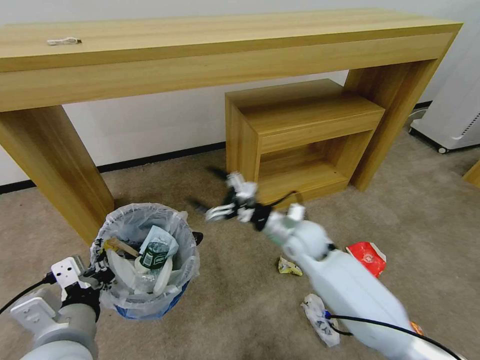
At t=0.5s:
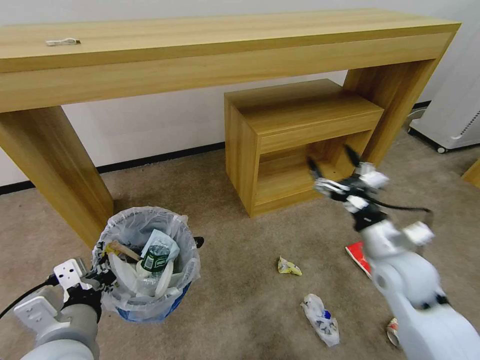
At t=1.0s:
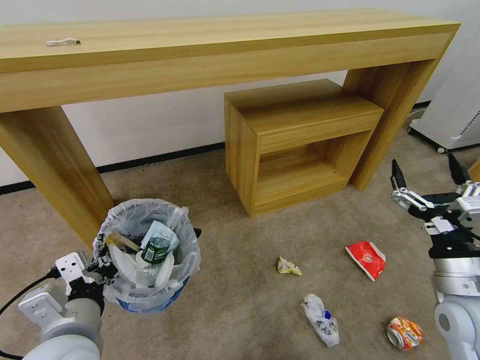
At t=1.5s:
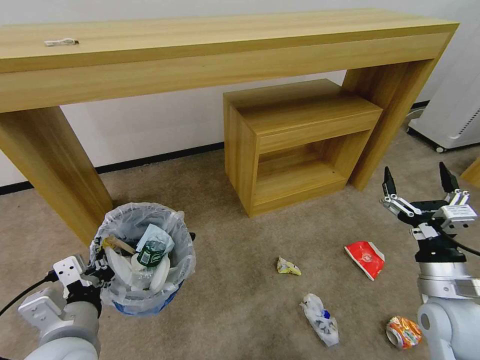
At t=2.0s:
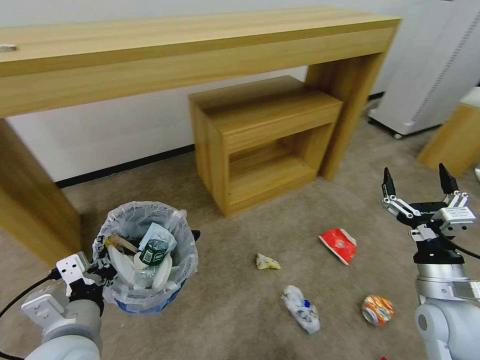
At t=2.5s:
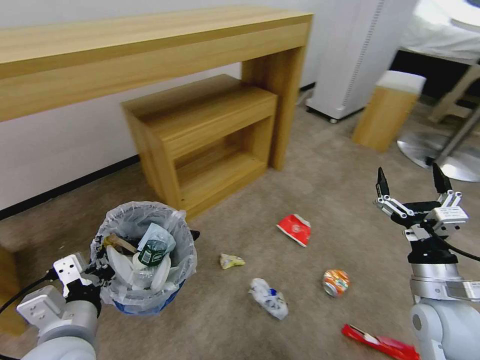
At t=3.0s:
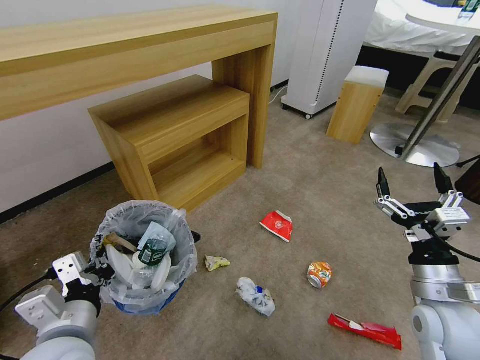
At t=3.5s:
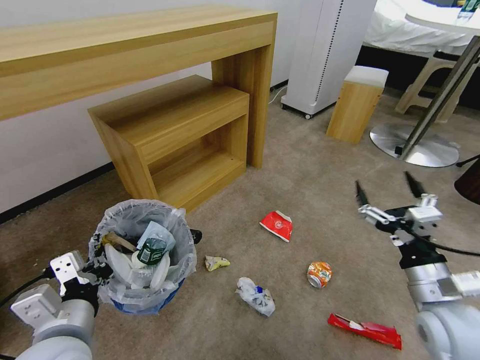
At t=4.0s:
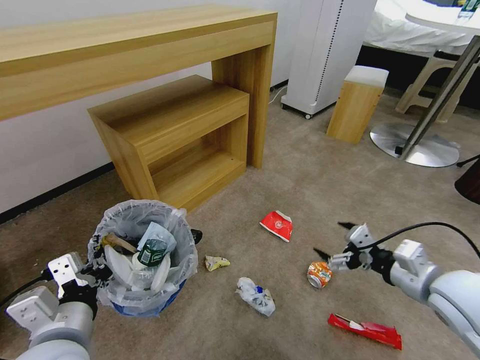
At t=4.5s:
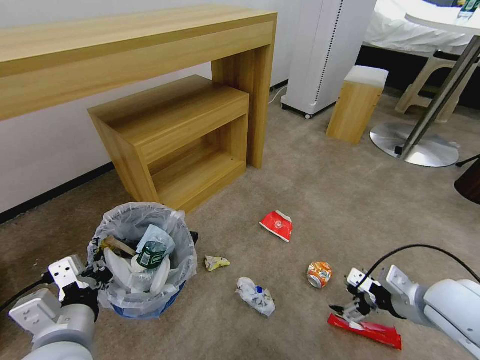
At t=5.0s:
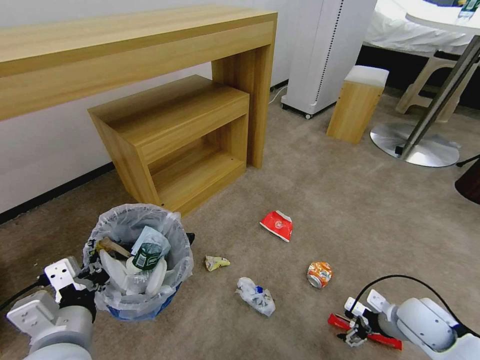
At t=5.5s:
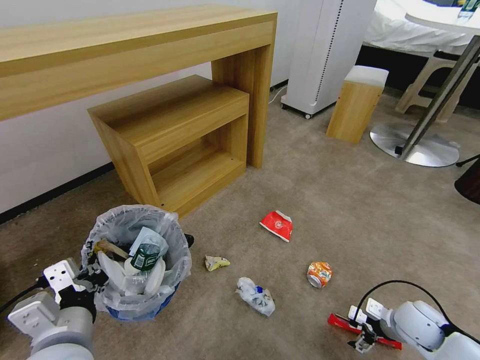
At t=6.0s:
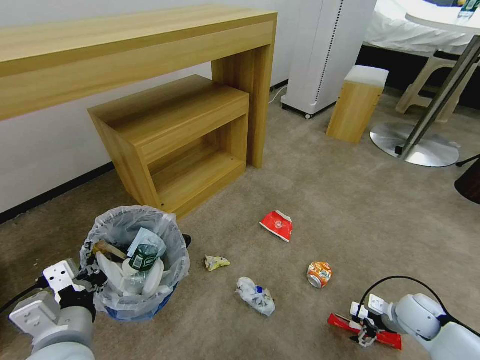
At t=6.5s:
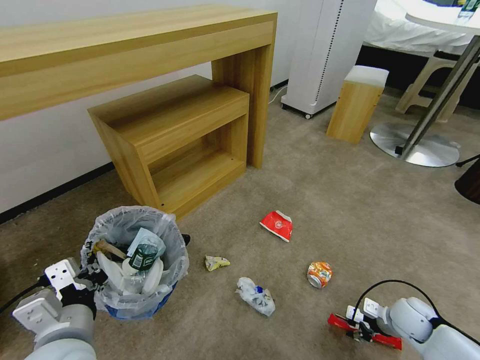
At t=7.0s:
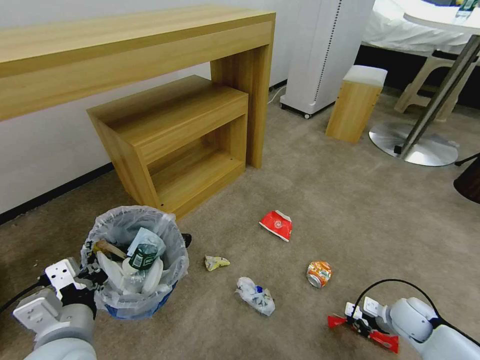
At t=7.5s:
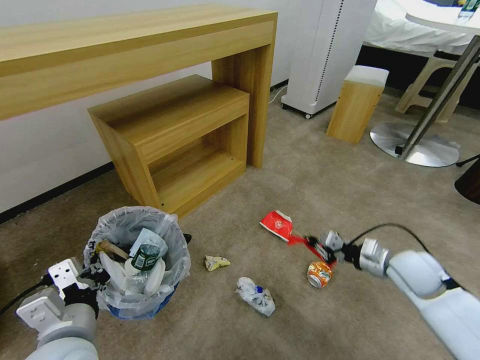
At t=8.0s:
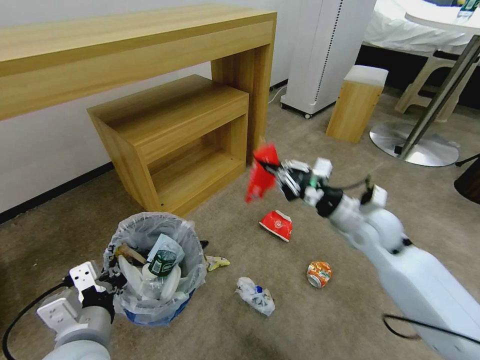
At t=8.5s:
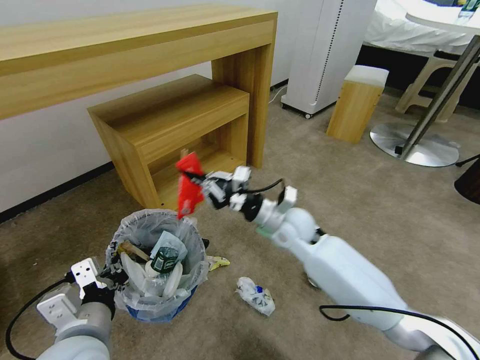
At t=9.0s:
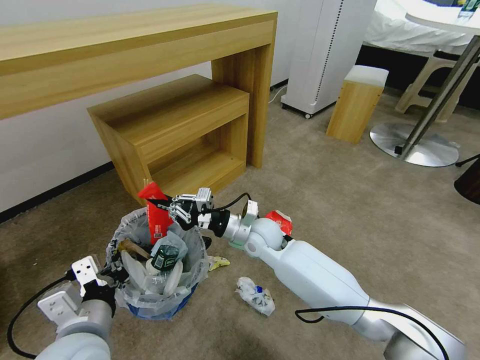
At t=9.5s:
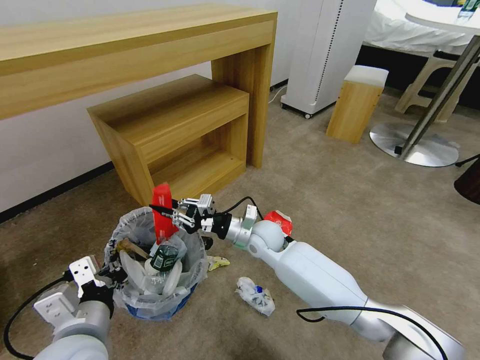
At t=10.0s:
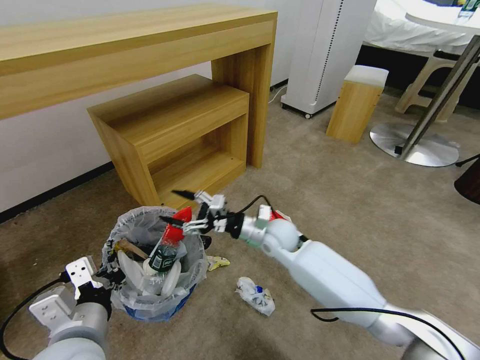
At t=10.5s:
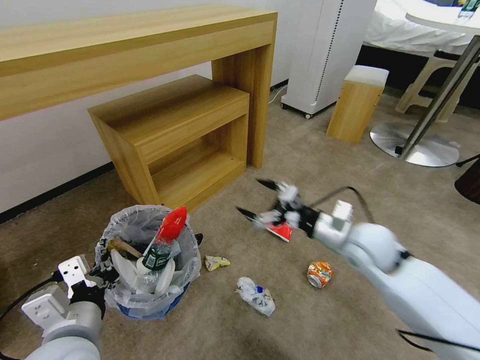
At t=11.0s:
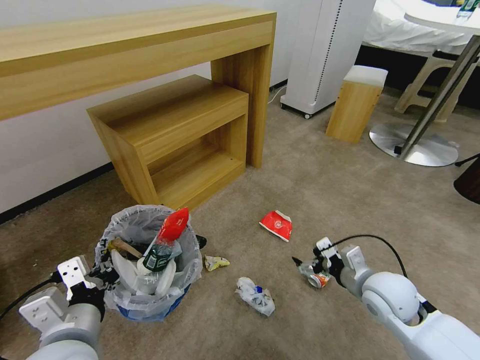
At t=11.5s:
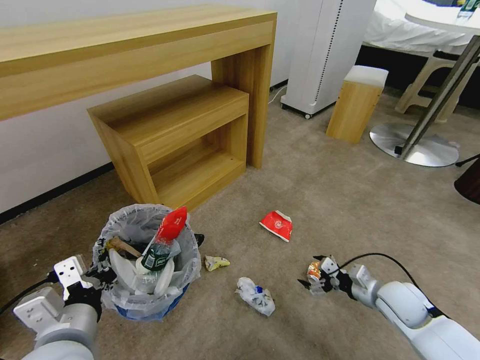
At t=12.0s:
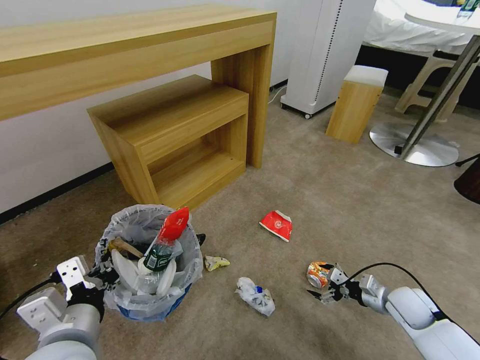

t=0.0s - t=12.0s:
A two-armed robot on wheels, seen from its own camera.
Task of the whole recording: Pick up the trash bin and place the garbage on the floor into it.
t=0.0s - t=2.0s: The right gripper is displaced to the right and backward by about 30 cm.
t=2.0s - t=4.0s: The right gripper ends up about 5 cm from where it was.
t=4.0s - t=6.0s: The right gripper shifts about 25 cm downward.
t=6.0s - t=8.0s: The right gripper travels upward, to the left and forward by roughly 30 cm, and closes.
t=8.0s - t=10.0s: The right gripper is displaced to the left and downward by approximately 20 cm, and opens.
t=10.0s - t=12.0s: The right gripper is displaced to the right and backward by some 35 cm.

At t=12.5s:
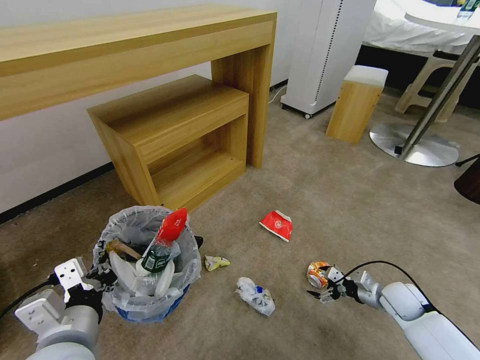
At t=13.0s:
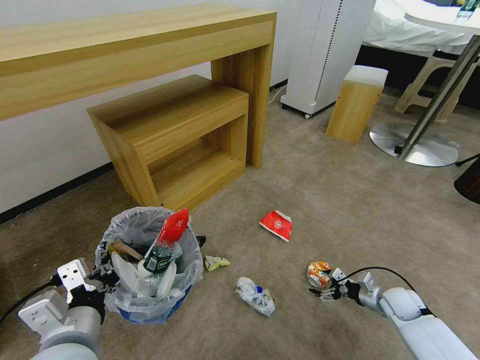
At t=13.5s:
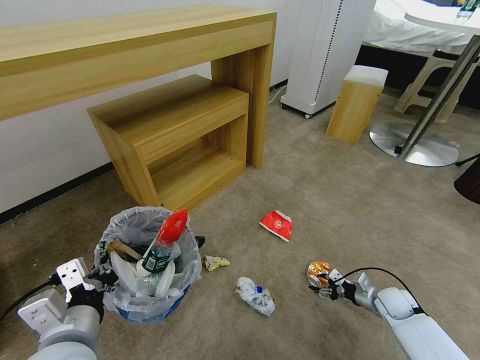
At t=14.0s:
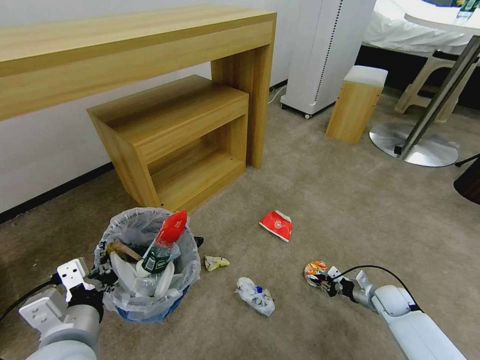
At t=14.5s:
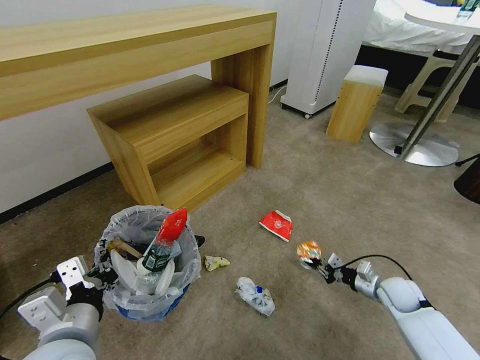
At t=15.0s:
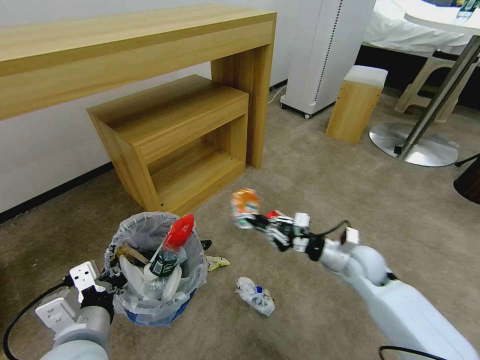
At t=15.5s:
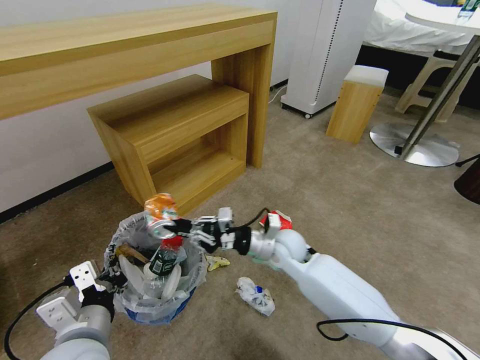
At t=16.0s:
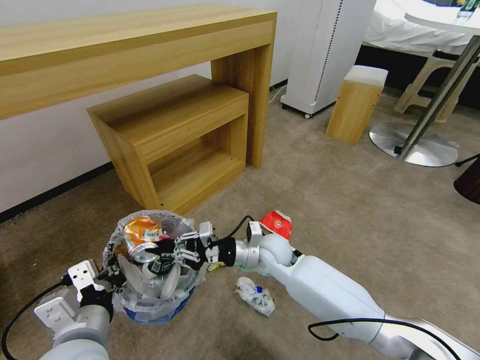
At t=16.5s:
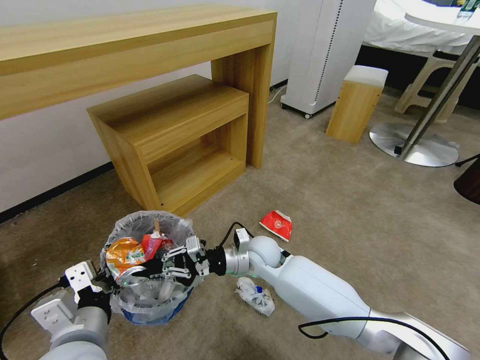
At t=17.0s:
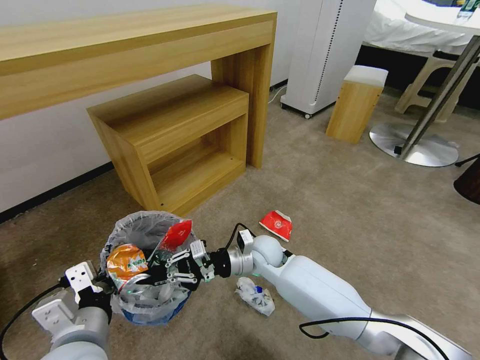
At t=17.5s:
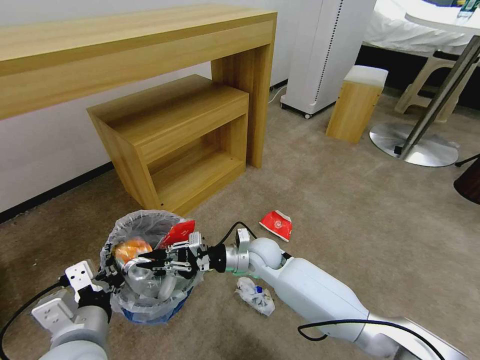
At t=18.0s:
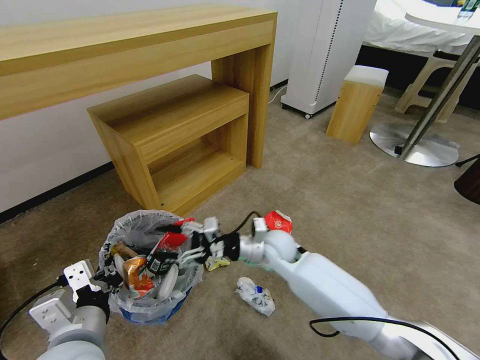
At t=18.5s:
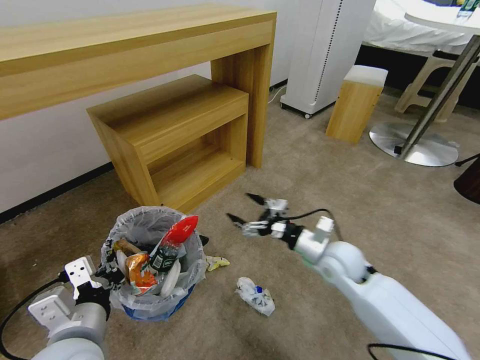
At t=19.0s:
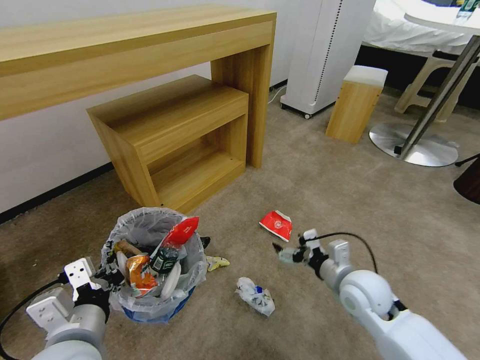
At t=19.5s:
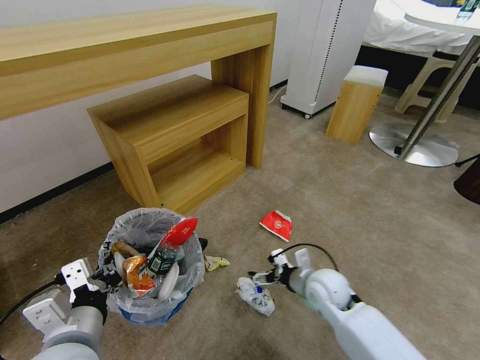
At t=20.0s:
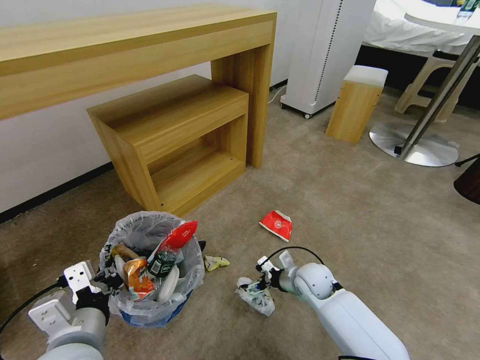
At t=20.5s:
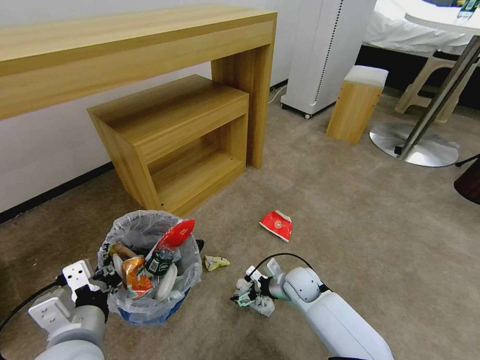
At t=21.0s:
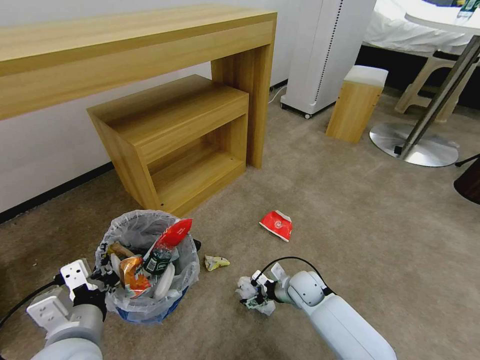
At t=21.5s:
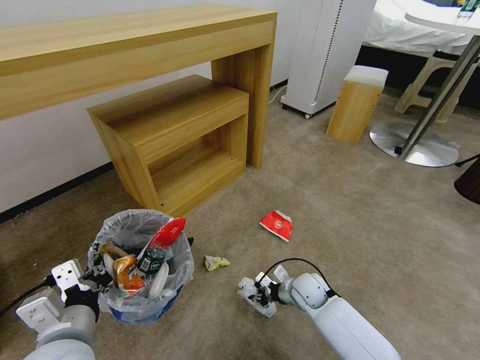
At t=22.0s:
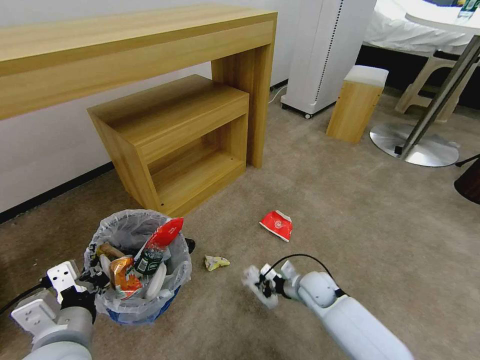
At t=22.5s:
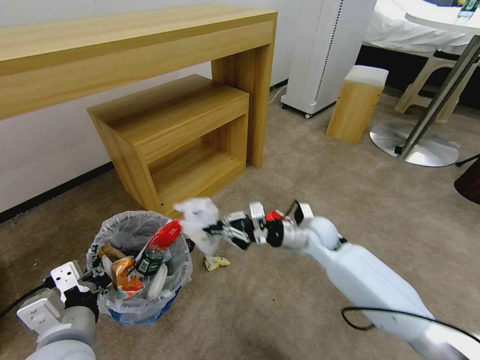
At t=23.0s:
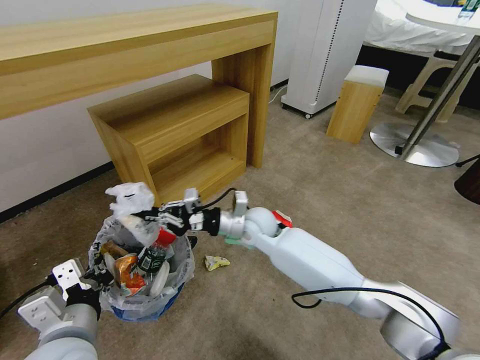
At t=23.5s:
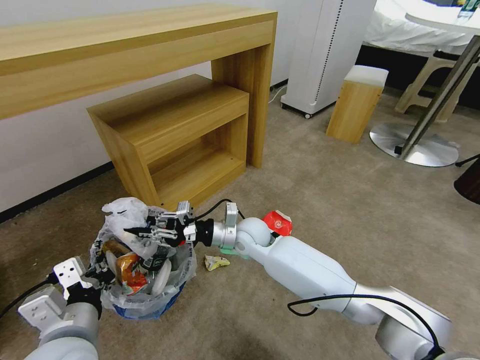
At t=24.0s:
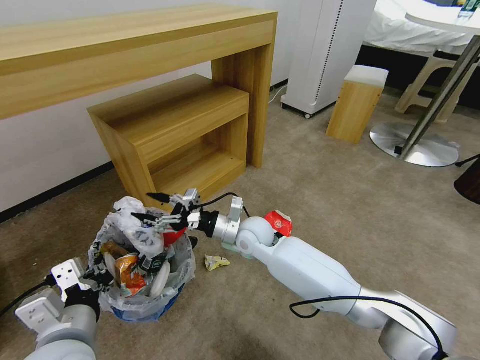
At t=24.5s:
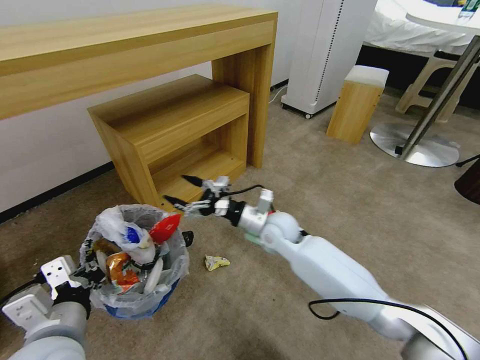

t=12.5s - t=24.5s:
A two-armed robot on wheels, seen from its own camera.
Task of the whole recording: Pick up the trash bin and place the garbage on the floor into it.
t=12.5s - t=14.5s: The right gripper closes up.
t=14.5s - t=16.5s: The right gripper heads to the left, covering about 40 cm.
t=16.5s - t=18.5s: The right gripper shifts some 20 cm to the right, and opens its fingers.
t=18.5s - t=20.5s: The right gripper heads downward and to the left, covering about 15 cm.
t=20.5s - t=22.5s: The right gripper goes roughly 15 cm upward, and closes.
t=22.5s - t=24.5s: The right gripper moves to the left, some 10 cm, and opens up.

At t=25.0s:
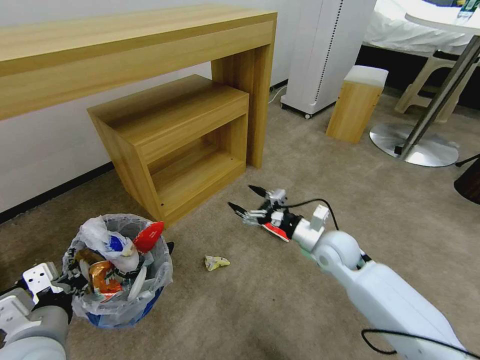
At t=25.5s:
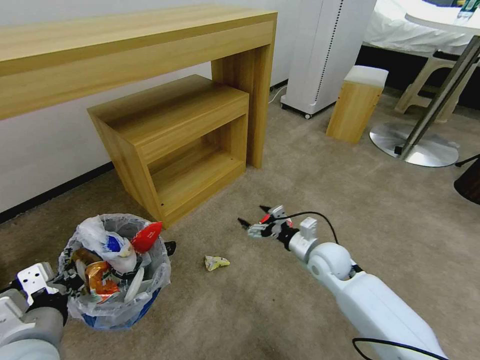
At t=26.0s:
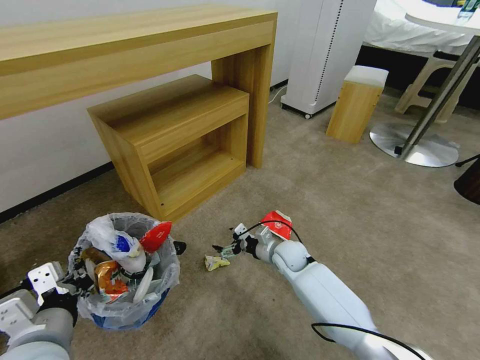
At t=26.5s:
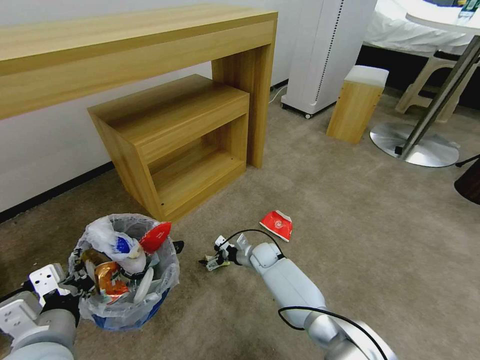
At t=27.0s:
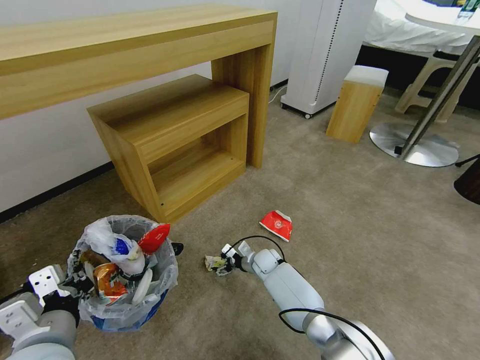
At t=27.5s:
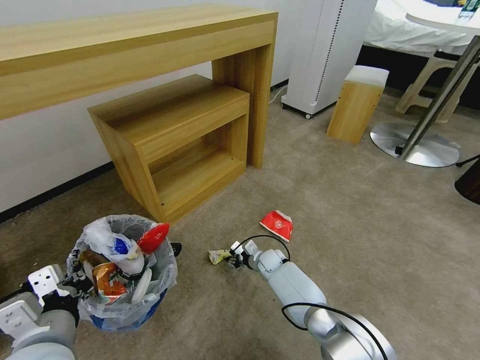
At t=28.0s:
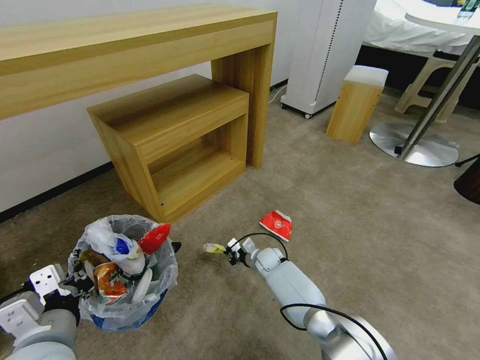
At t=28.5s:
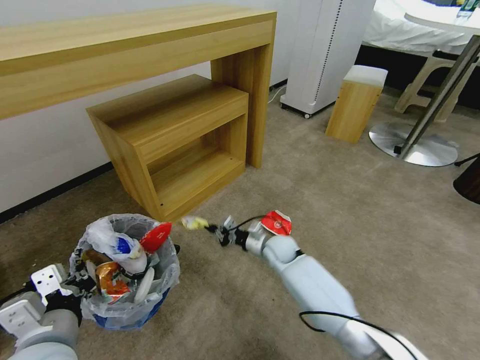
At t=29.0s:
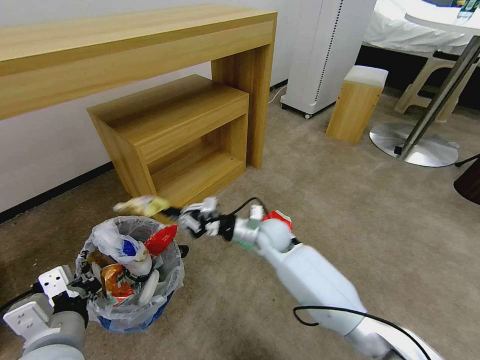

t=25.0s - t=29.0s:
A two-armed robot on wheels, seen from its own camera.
Task of the whole recording: Pick up the trash bin and place the garbage on the floor into it.
t=25.0s - t=27.0s: The right gripper is displaced downward and to the left by approximately 25 cm.
t=27.0s - t=29.0s: The right gripper heads upward, covering some 20 cm, and closes up.
